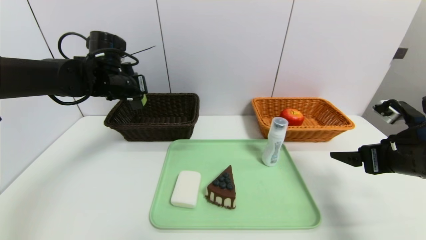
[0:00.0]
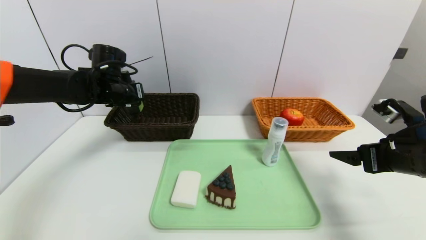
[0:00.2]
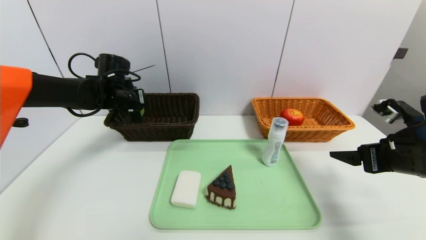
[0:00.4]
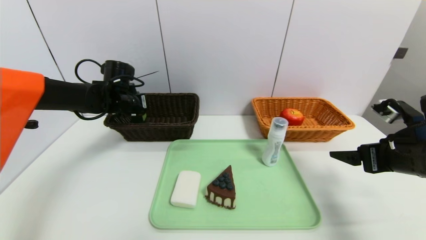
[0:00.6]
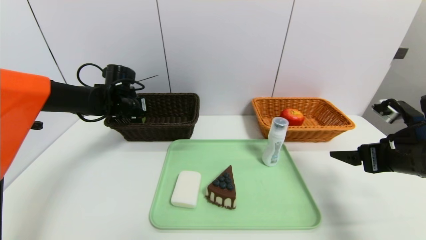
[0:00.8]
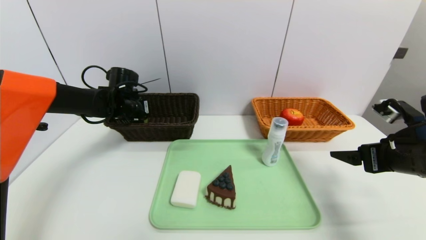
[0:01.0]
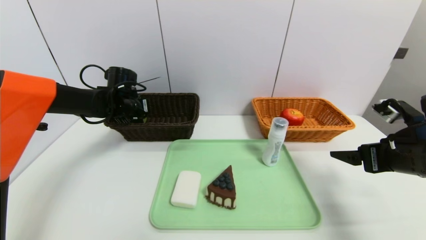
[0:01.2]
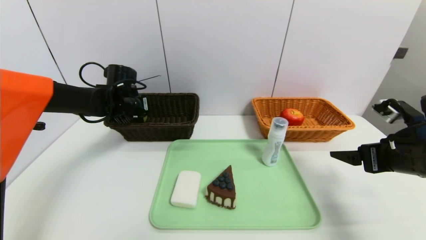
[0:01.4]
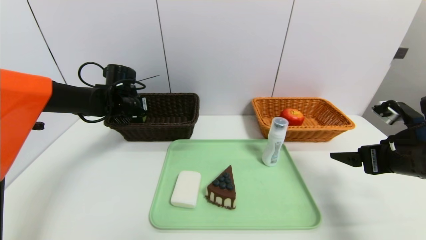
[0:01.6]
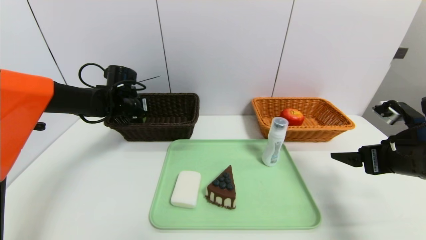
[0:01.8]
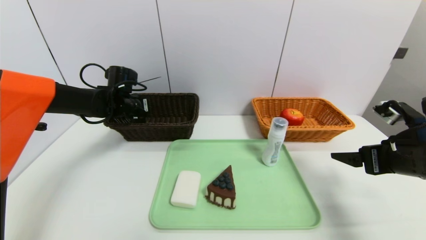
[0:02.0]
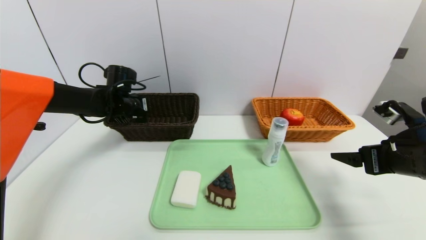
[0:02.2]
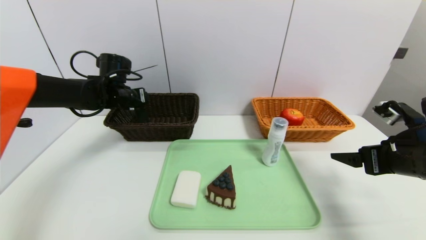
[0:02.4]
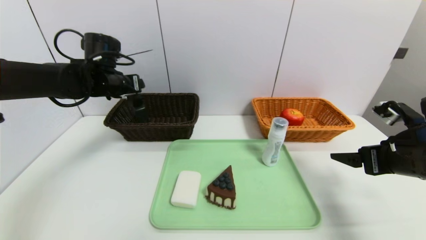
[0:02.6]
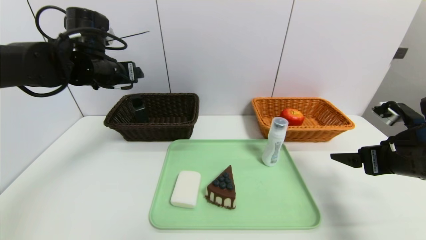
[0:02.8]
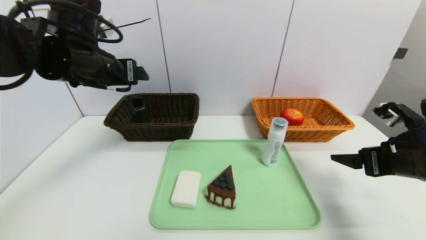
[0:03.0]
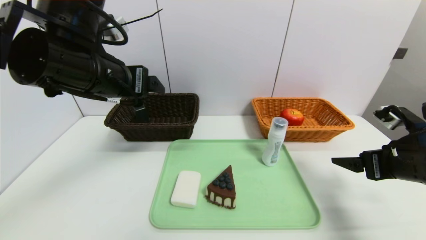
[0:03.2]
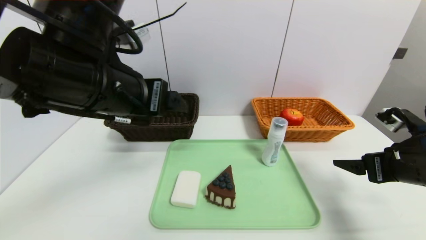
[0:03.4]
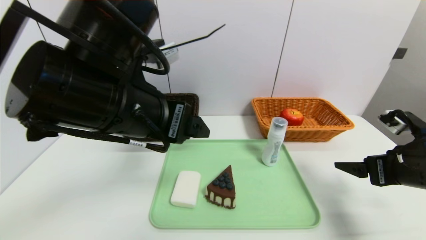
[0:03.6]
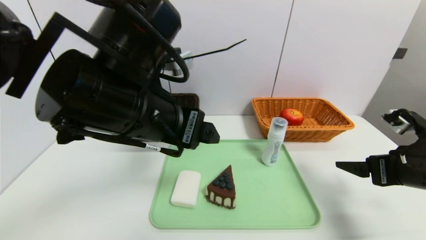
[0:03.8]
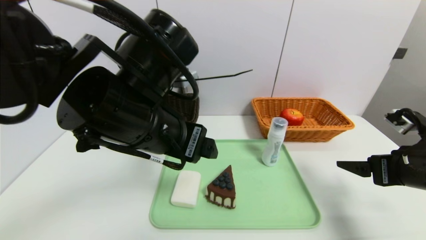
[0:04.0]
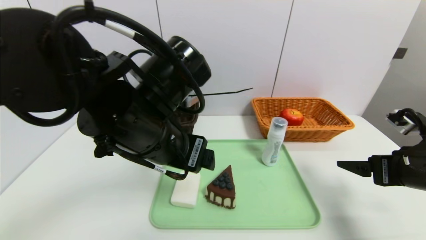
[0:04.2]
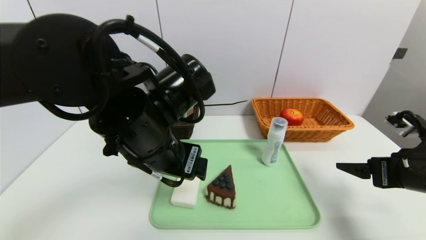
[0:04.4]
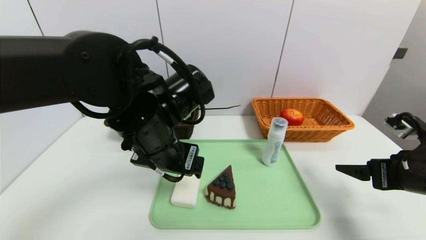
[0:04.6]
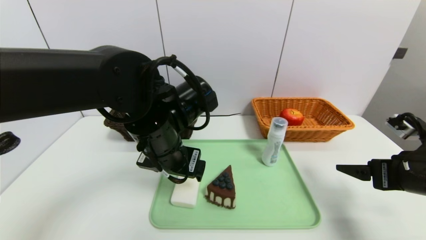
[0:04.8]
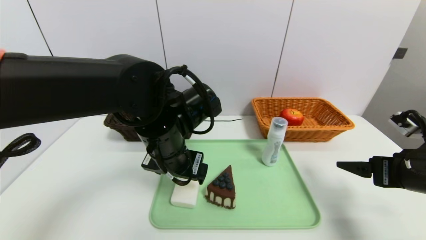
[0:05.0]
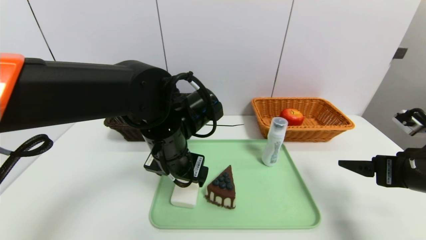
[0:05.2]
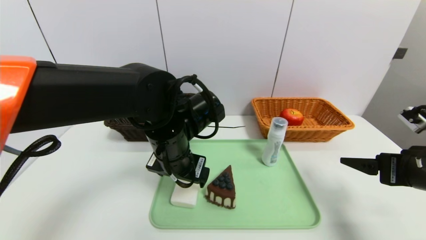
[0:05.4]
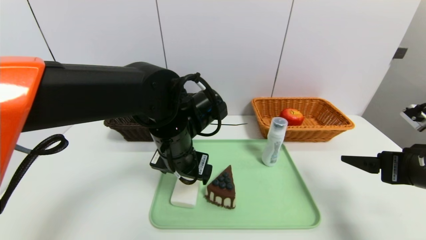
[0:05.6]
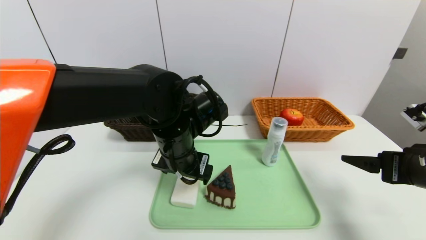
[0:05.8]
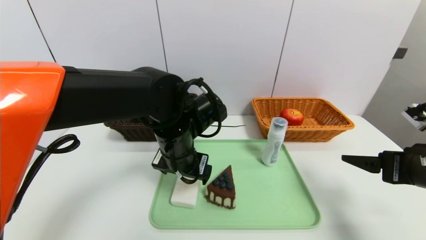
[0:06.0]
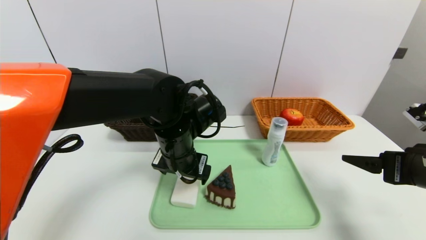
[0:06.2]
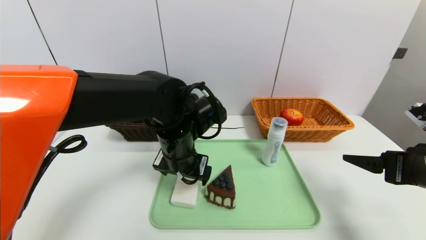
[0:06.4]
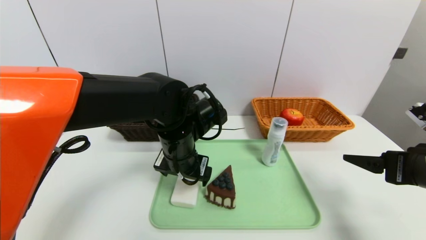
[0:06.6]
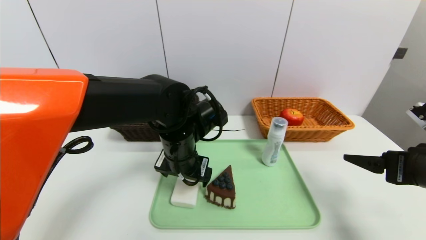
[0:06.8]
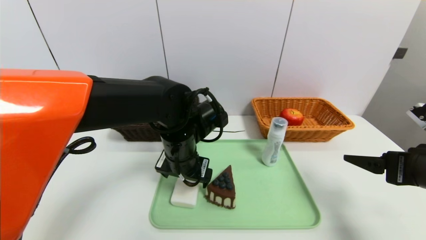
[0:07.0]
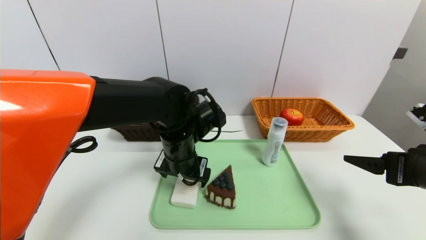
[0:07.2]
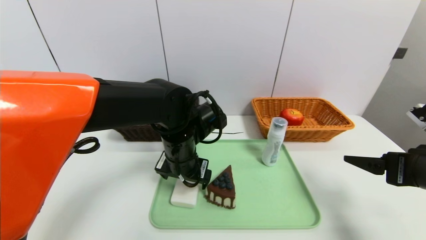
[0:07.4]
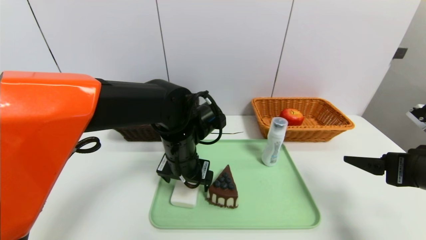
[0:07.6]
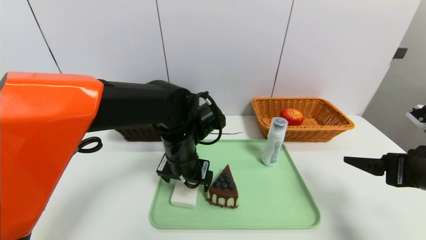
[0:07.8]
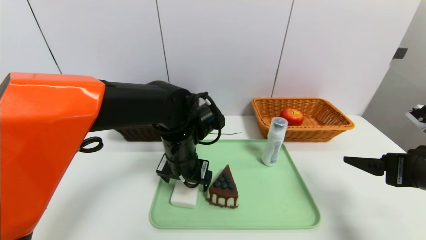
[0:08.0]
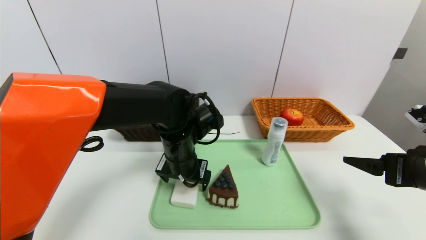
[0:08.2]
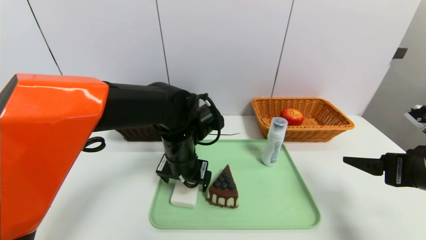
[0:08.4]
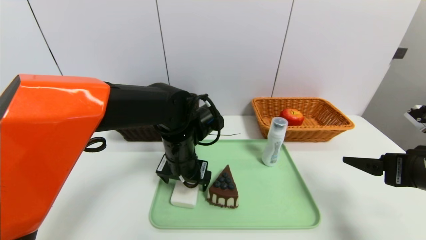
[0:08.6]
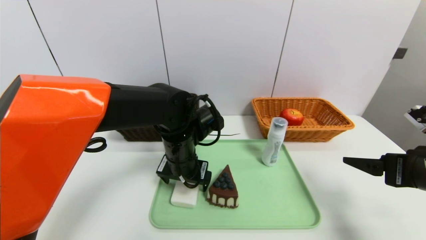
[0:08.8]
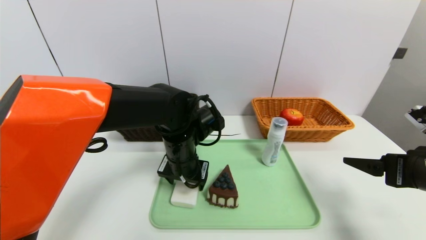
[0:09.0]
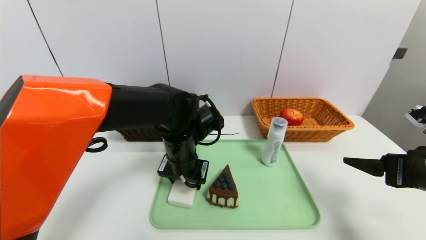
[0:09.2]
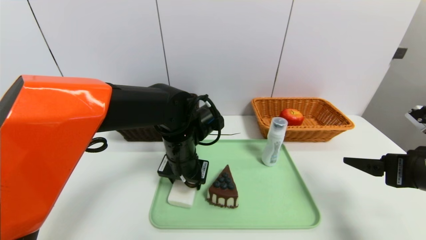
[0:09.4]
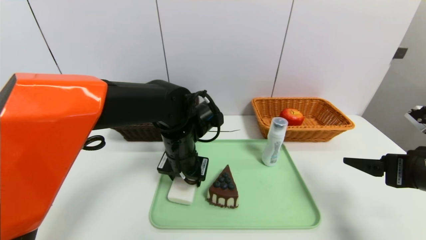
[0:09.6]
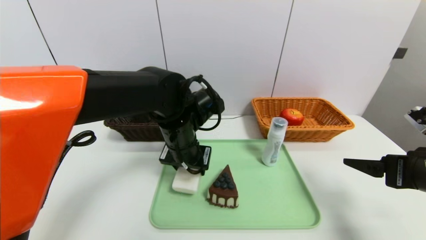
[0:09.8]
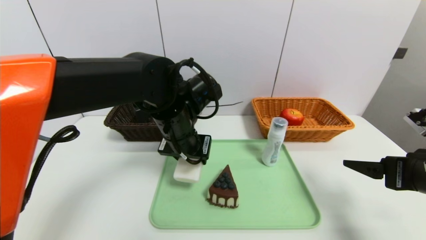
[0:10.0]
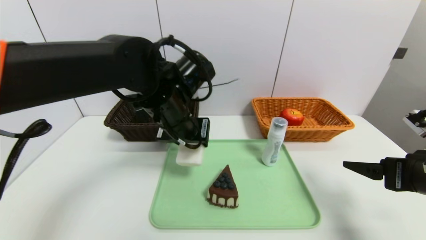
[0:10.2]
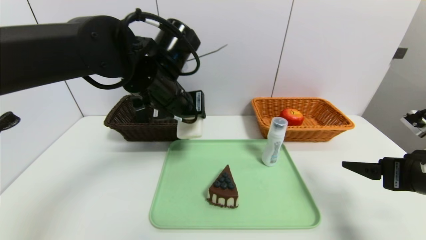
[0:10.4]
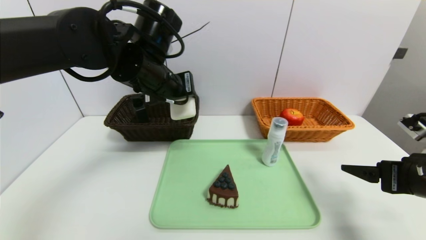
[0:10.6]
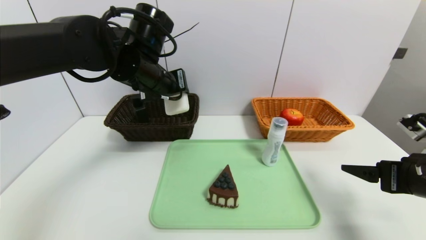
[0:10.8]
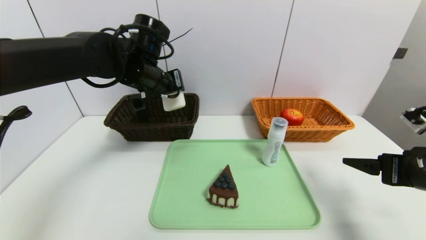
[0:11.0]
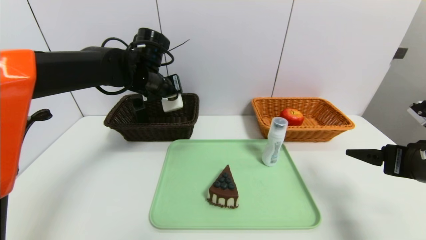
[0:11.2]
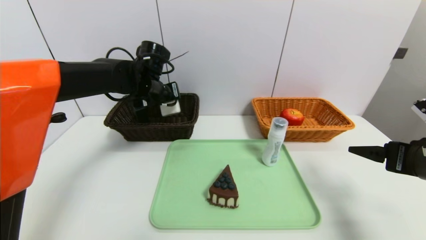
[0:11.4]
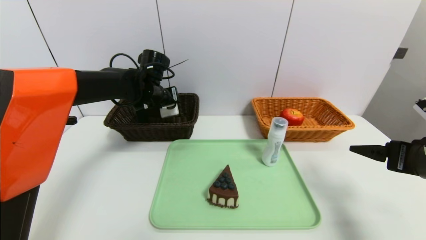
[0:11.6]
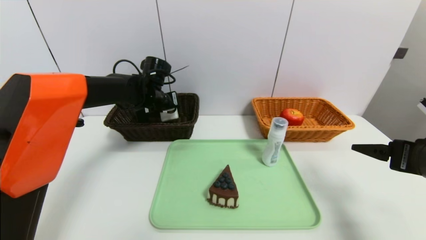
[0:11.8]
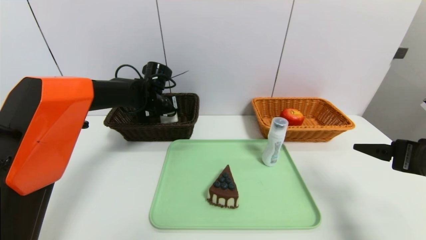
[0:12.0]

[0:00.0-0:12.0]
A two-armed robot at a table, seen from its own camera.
Task of the whole recording: place the food in the right basket with the right gripper, and place the non food items in the left basket with the left gripper.
Step, 0:00.0 to 0:02.6: Grasp the hard cleanser and put it in the left basket.
0:00.0 to 0:01.6: The left gripper travels downward by about 5 cm.
0:01.6 to 0:03.0: The left gripper travels upward and backward by some 20 cm, and opens its fingers.
0:03.0 to 0:04.4: The left gripper travels to the right, backward and downward by some 15 cm.
0:04.4 to 0:06.0: The left gripper moves downward and forward, roughly 10 cm.
0:06.0 to 0:09.0: The grippers make only small movements.
0:09.0 to 0:10.4: The left gripper shifts some 10 cm upward.
0:10.4 to 0:12.0: The left gripper travels forward, downward and to the left by roughly 20 cm.

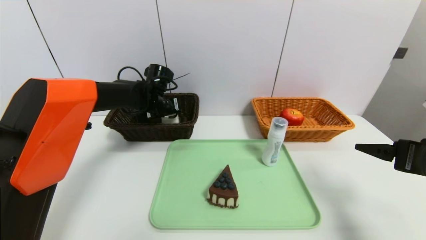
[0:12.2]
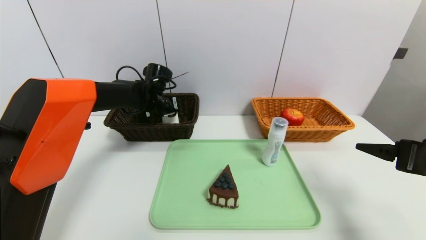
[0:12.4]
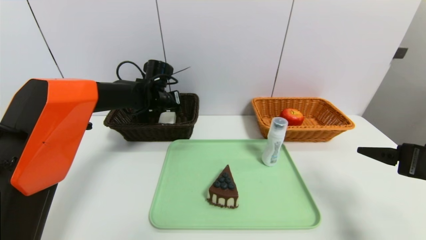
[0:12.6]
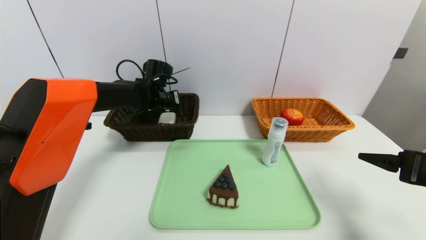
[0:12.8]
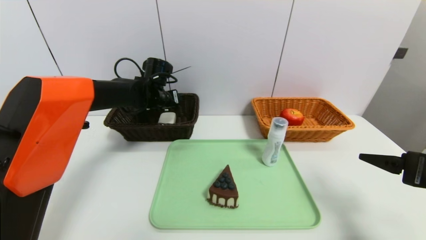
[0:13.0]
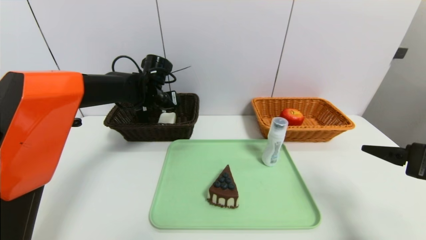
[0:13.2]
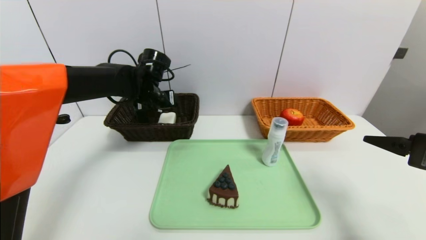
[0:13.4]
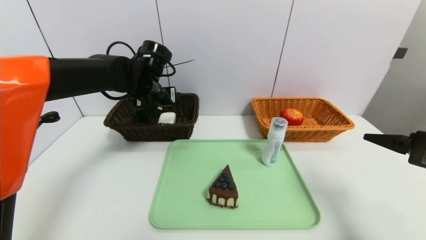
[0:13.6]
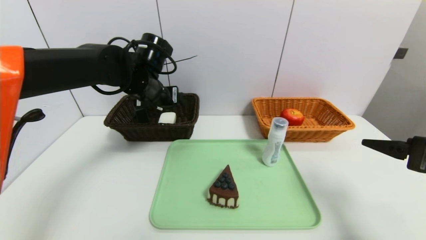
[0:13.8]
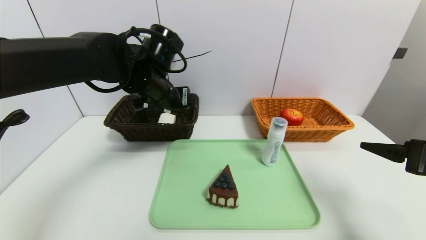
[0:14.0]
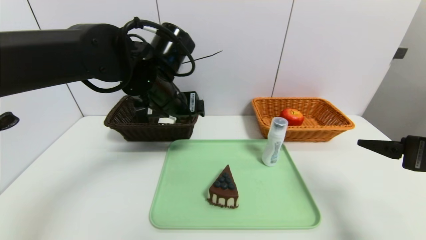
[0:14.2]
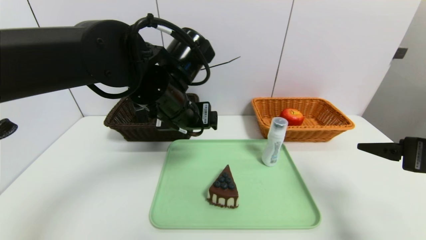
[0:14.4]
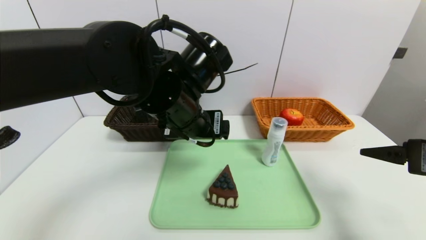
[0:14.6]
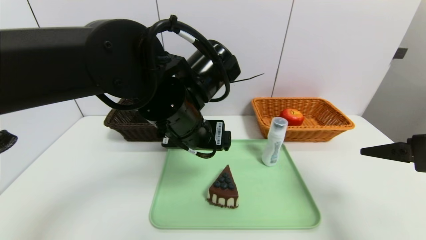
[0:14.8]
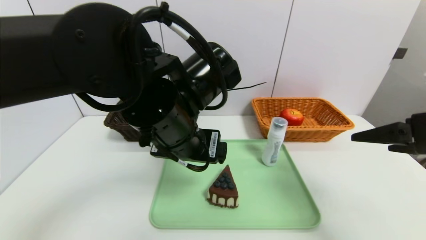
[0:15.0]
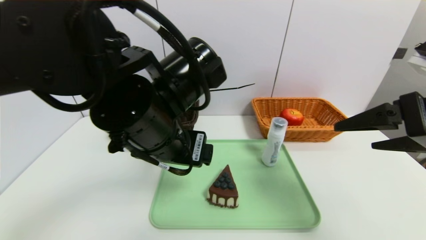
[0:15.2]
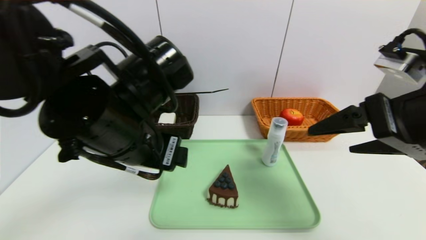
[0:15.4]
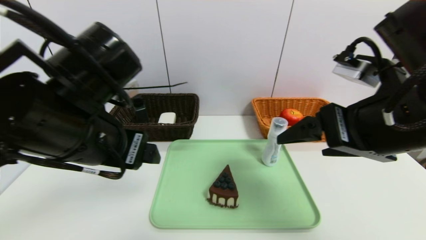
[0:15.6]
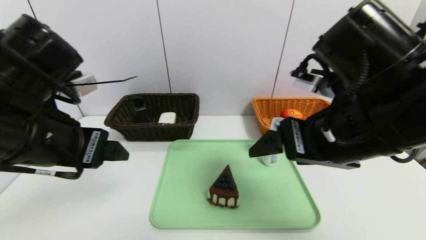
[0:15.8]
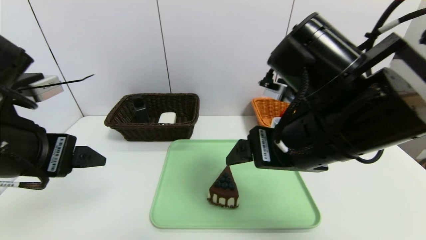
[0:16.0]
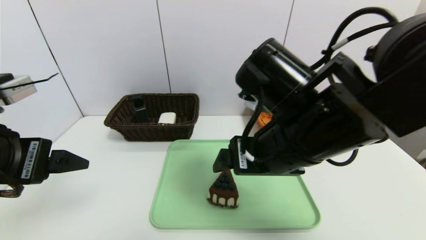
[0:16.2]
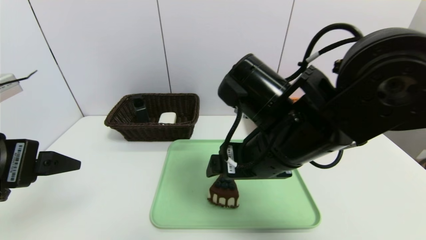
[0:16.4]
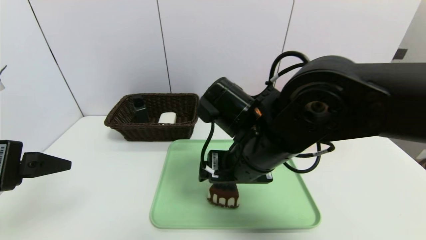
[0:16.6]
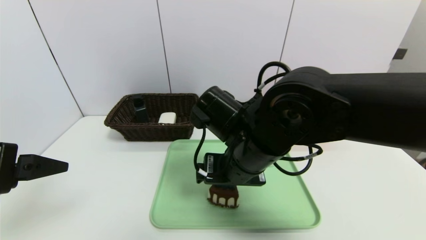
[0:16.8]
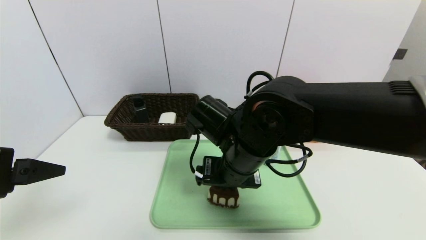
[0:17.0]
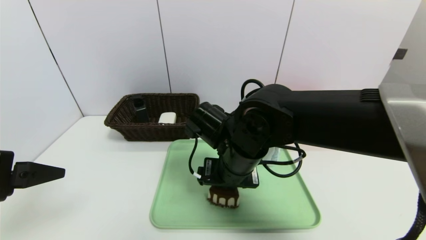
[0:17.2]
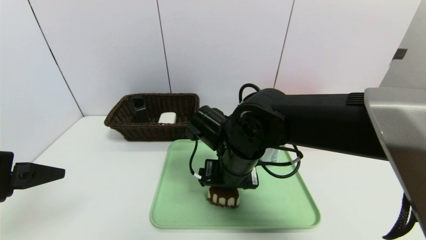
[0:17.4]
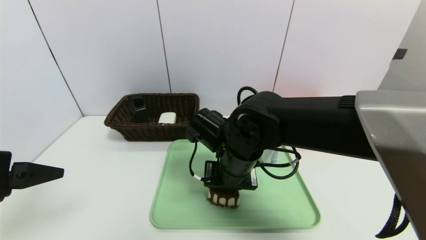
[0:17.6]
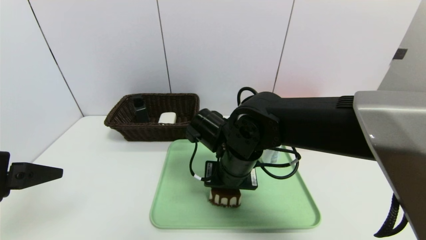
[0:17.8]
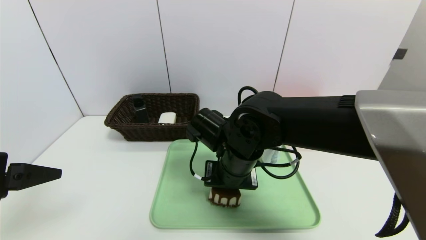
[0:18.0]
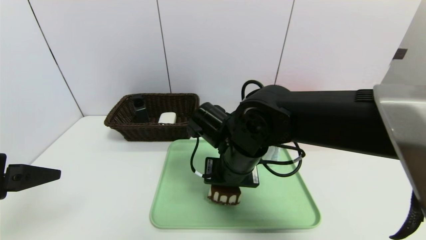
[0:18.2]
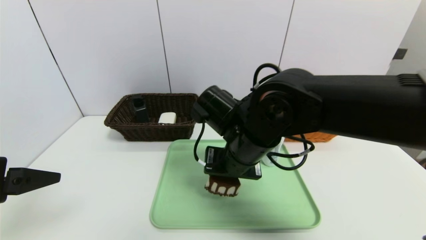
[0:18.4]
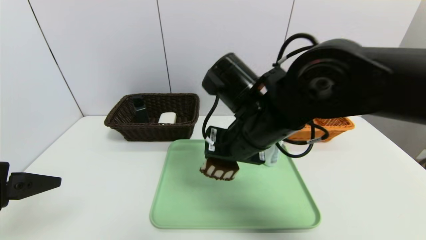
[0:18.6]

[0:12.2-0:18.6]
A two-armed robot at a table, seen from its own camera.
Task of the whole recording: place the food in the right basket with the right gripper, and place the non food items in the left basket with the left gripper.
0:12.2 to 0:13.8: The left gripper moves backward and upward, about 10 cm, and opens its fingers.
0:13.8 to 0:15.4: The right gripper goes some 15 cm to the left and upward. The left gripper travels backward by some 20 cm.
0:15.4 to 0:17.0: The left gripper moves to the left and backward, roughly 20 cm. Meanwhile the right gripper shifts about 25 cm to the left and downward.
0:17.0 to 0:18.6: The right gripper moves upward, roughly 5 cm, and closes up.
